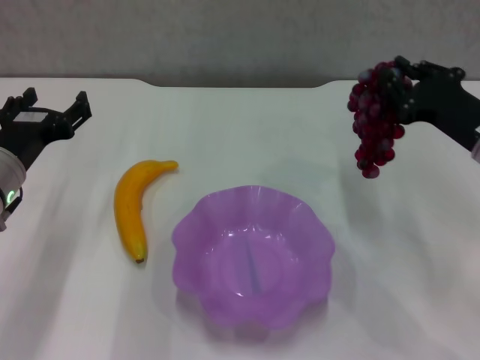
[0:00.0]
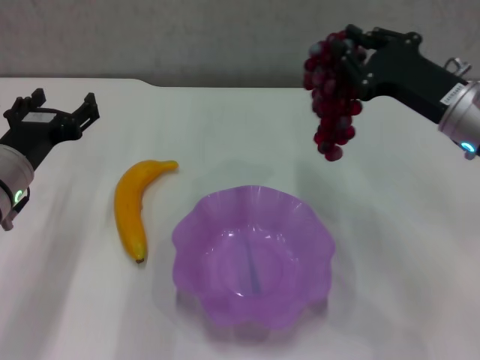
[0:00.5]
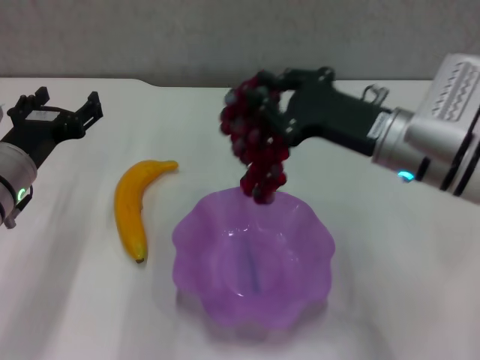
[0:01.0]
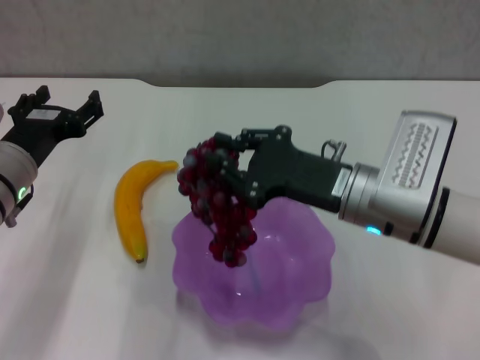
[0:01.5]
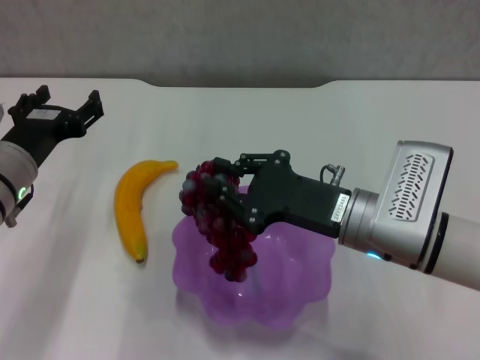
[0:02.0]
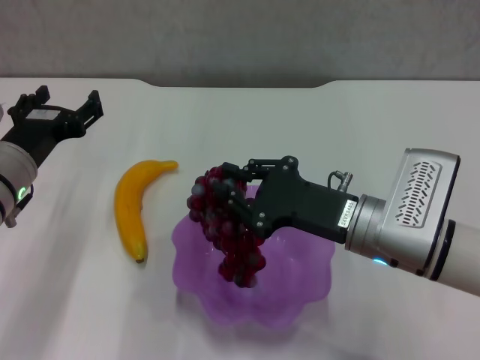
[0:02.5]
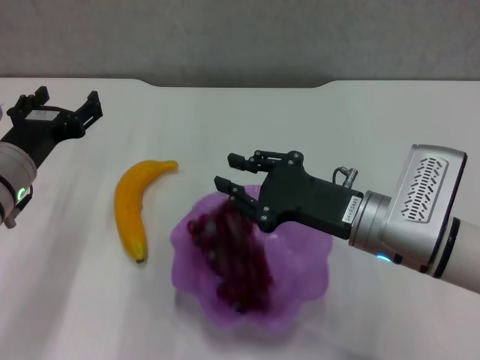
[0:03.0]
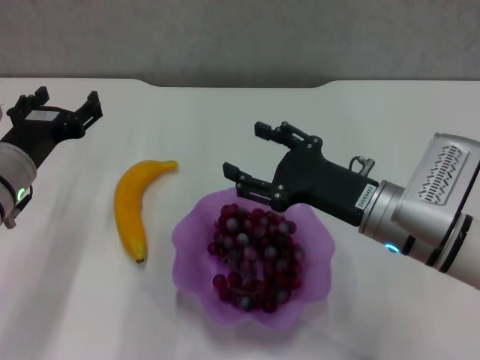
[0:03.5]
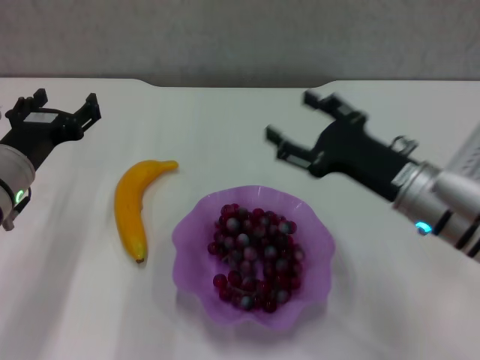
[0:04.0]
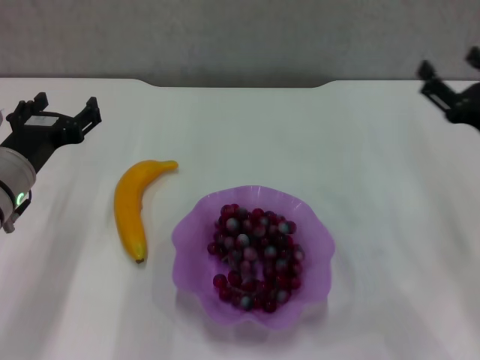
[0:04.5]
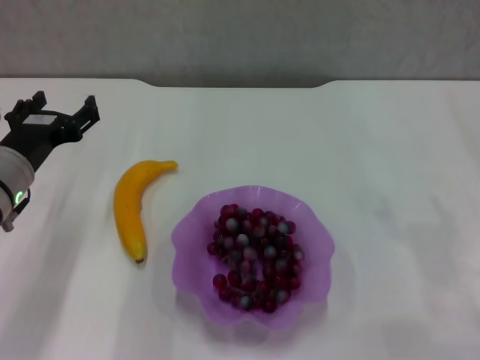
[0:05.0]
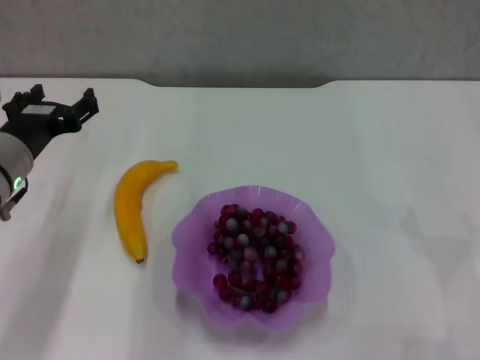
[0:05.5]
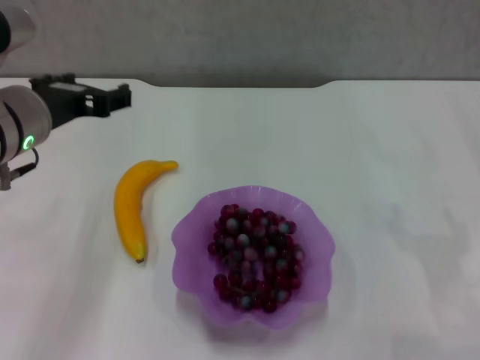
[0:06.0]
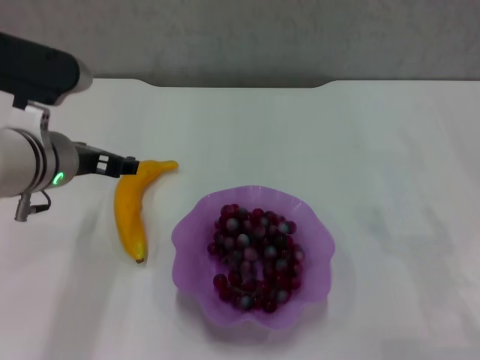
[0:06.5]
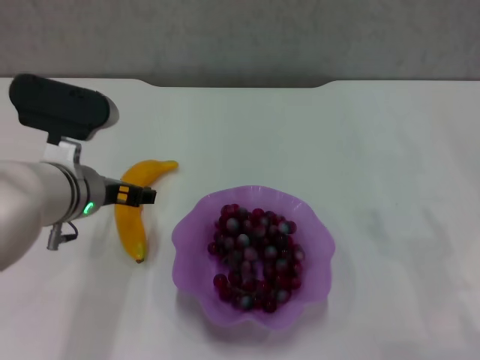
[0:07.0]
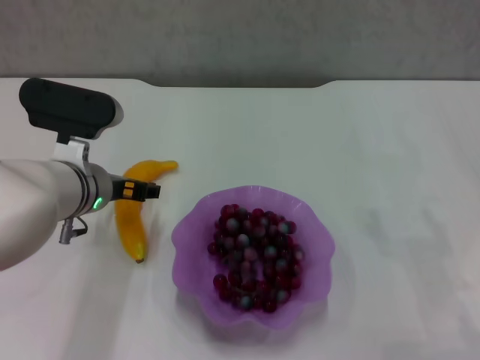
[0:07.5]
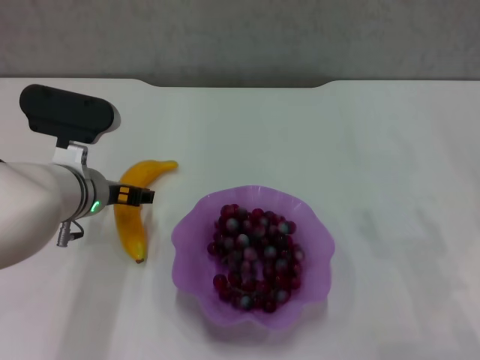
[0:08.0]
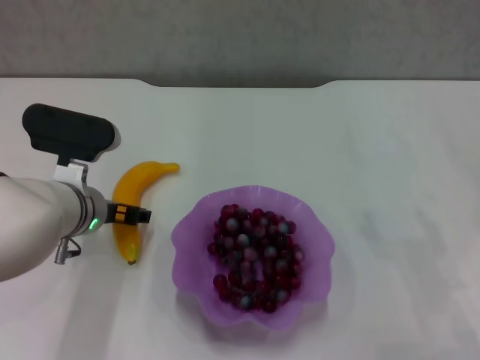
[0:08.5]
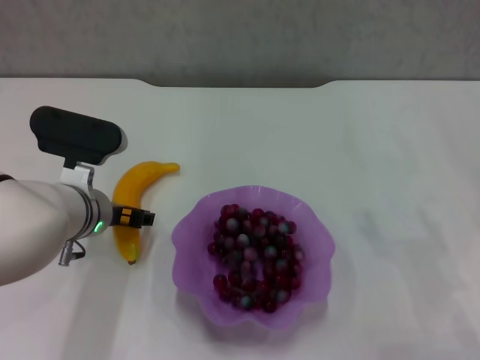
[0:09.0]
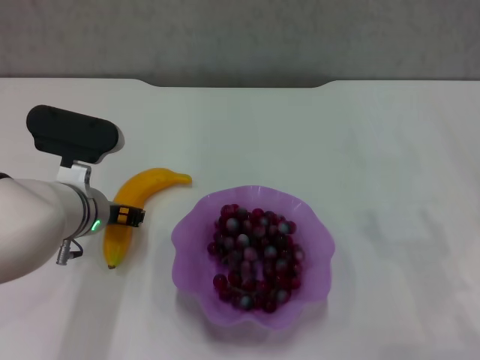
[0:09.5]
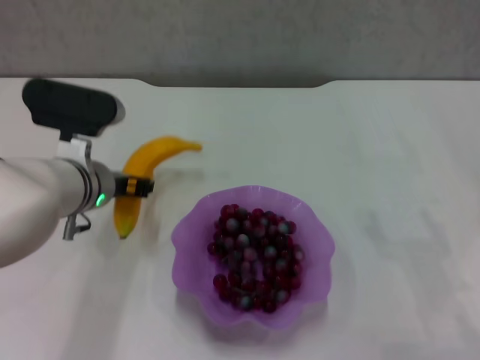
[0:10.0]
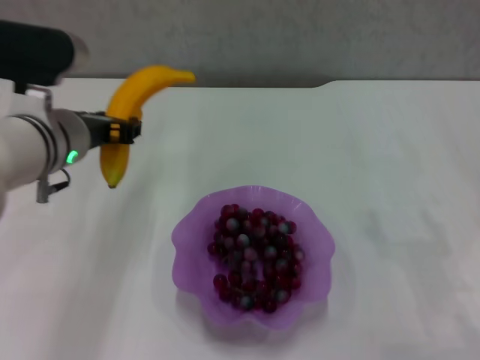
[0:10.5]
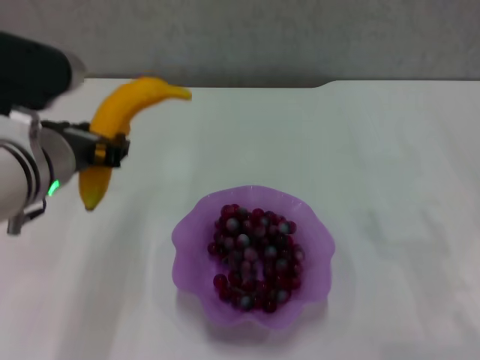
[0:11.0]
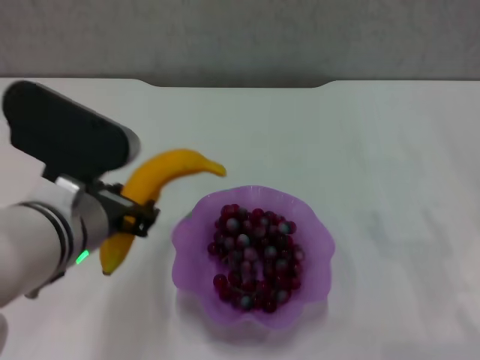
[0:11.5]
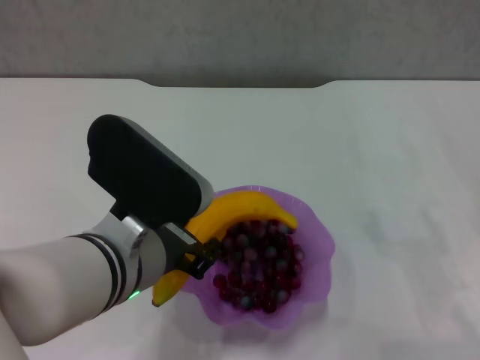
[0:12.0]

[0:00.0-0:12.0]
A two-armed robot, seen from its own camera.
Step, 0:00.0 to 0:03.0: Place the grape in the purple plate with right gripper.
Step, 0:03.5 to 0:09.0: Grasp the banana with left gripper.
0:00.0 to 0:02.0: The right gripper moves to the left and backward, some 15 cm.
0:02.0 to 0:04.0: The right gripper is displaced to the right by some 5 cm, and opens its fingers.
0:04.0 to 0:06.0: The right gripper travels to the right by about 15 cm, while the left gripper goes some 10 cm upward.
0:06.0 to 0:08.0: The left gripper heads downward, covering about 10 cm.
0:08.0 to 0:10.0: The left gripper closes.
0:10.0 to 0:12.0: The left gripper is displaced backward, to the right and upward by some 15 cm.

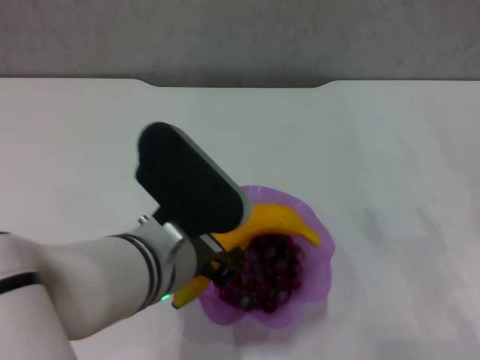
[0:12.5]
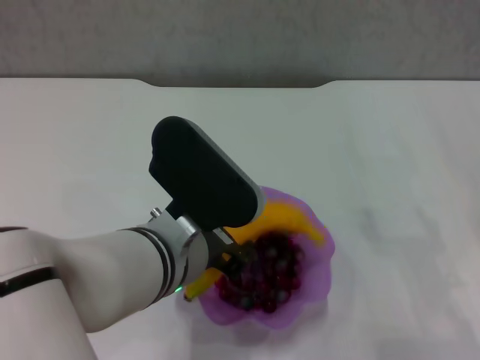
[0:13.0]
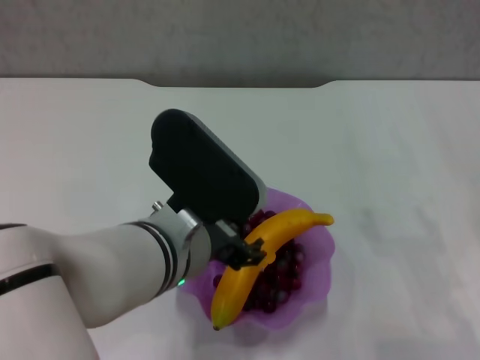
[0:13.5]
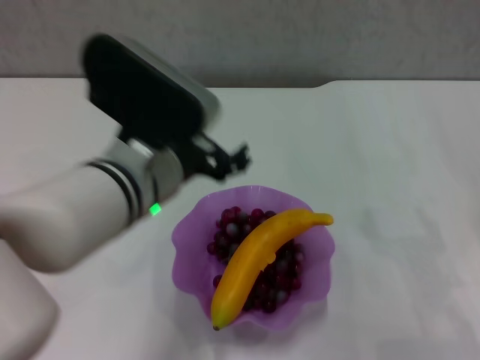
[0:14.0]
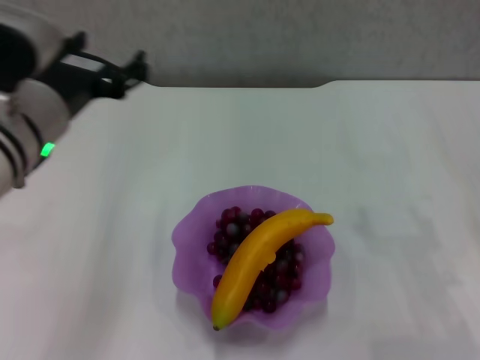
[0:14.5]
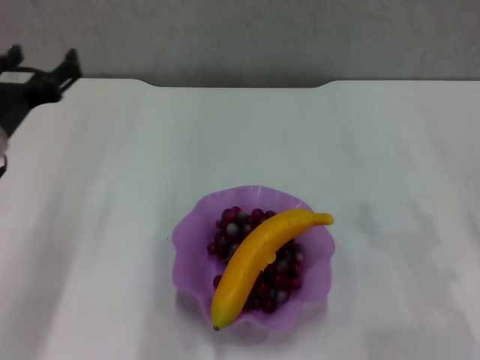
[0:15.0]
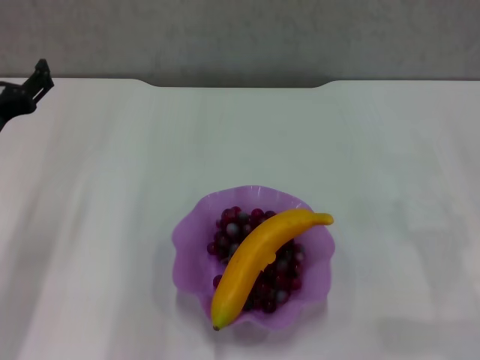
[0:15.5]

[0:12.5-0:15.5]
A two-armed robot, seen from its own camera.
0:12.5 to 0:14.0: The left gripper ends up some 5 cm from where it was, and opens.
0:14.0 to 0:15.5: The left gripper heads to the left, covering approximately 20 cm.
